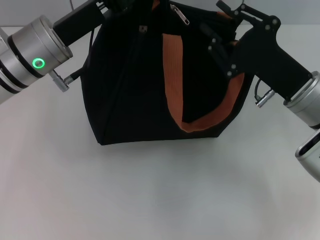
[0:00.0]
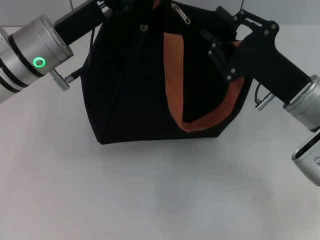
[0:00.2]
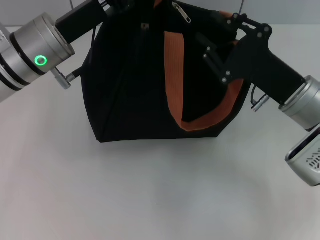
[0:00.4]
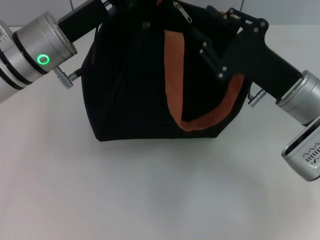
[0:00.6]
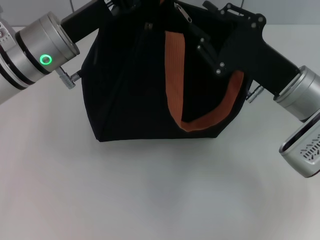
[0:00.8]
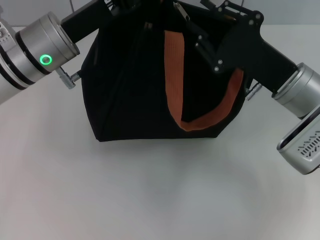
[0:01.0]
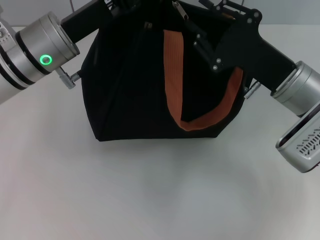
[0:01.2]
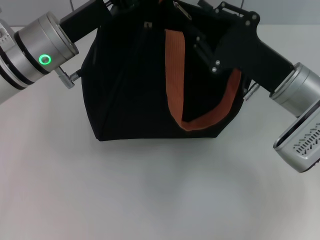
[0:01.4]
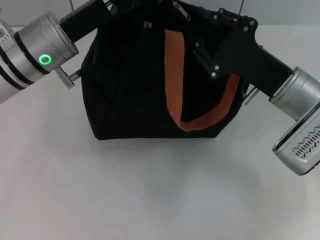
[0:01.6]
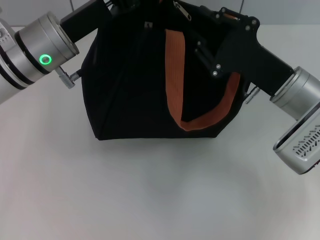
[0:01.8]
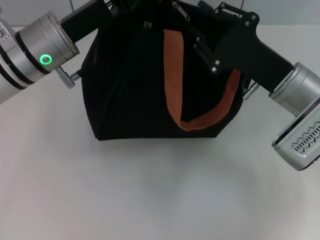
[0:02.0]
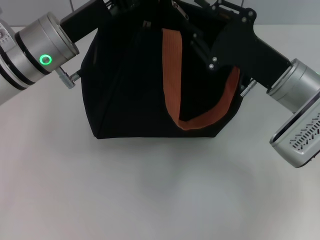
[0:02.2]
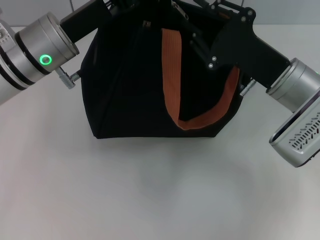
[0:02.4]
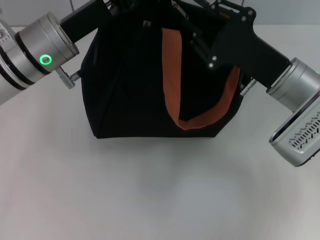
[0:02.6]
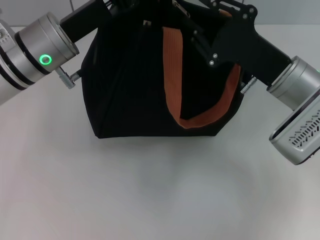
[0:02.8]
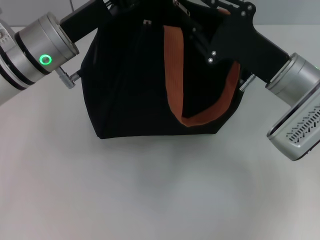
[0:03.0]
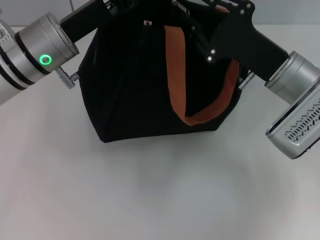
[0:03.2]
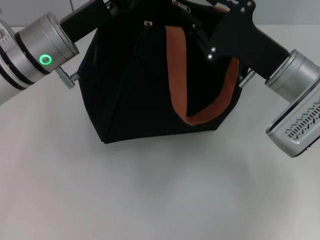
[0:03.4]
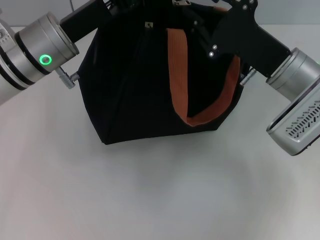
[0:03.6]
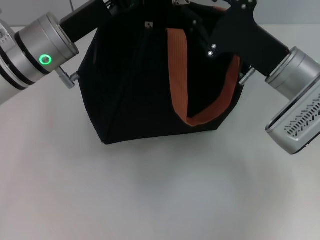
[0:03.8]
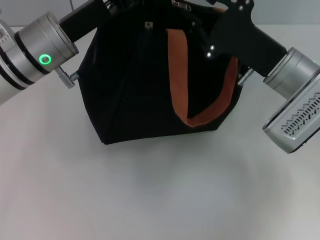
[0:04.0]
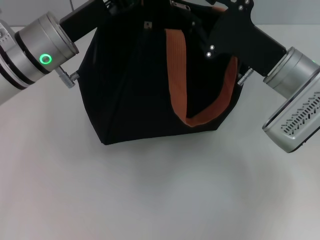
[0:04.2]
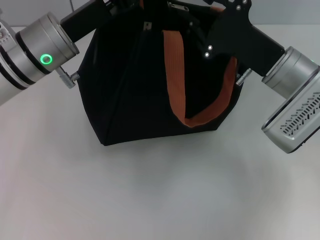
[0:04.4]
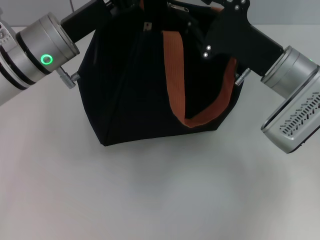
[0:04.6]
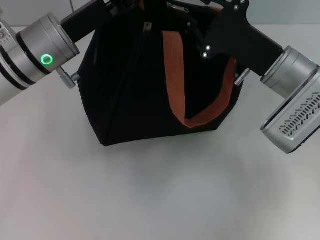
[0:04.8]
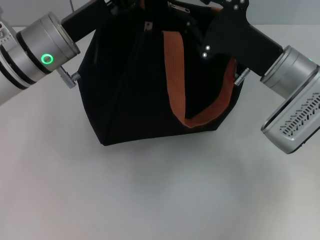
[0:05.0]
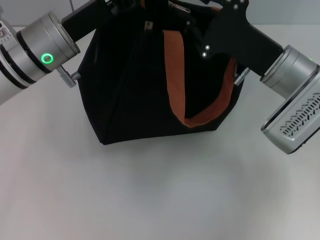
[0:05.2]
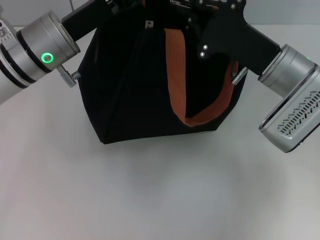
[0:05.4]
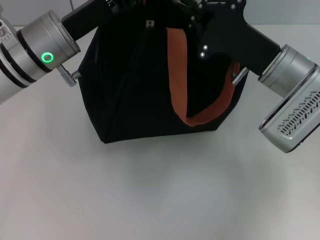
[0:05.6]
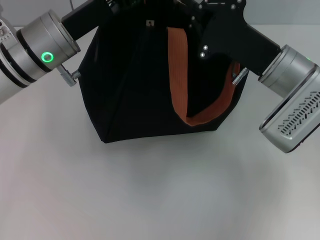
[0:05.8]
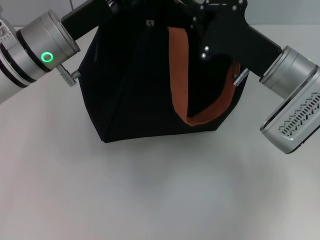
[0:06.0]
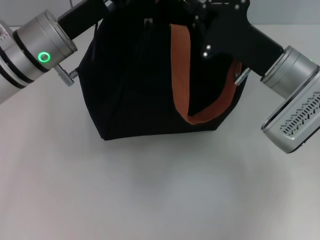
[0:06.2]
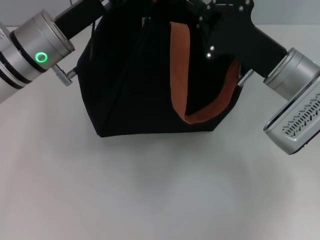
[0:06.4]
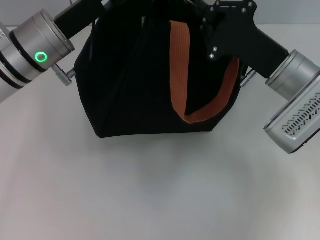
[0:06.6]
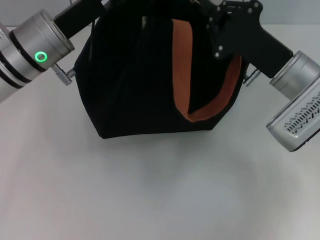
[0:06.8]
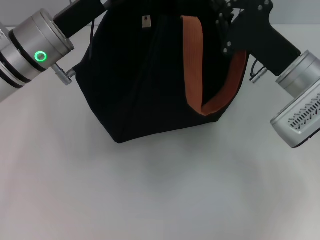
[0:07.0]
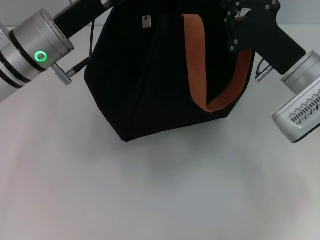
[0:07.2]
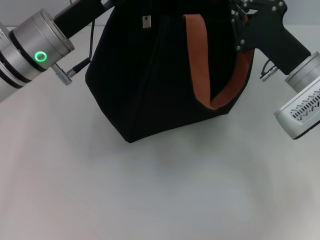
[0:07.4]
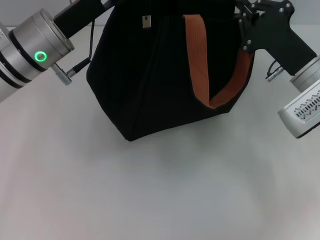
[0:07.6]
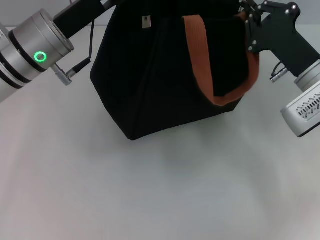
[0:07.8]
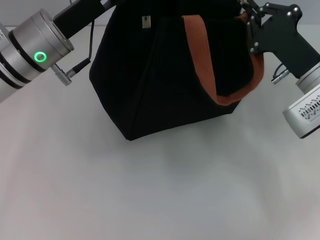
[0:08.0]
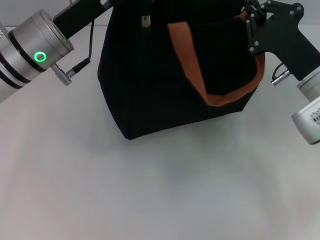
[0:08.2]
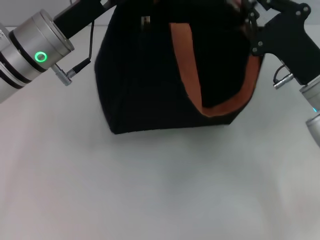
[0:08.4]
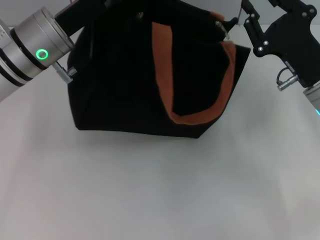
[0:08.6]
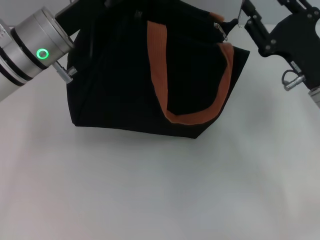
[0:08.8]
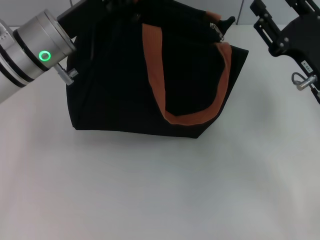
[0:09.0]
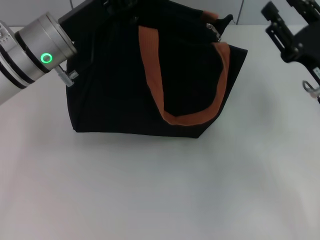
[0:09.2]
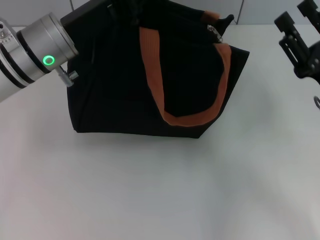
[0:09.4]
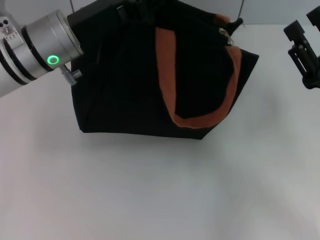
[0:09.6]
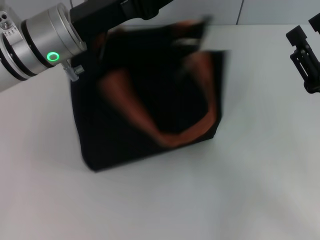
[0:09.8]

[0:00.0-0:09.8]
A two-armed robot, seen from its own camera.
Step, 0.0 to 8.4 s: Pull up the zipper with your right hand.
0.0 to 1.4 s: The grippers stay close to where they were, moving slightly.
1.4 to 2.8 s: Neither gripper changes place.
2.8 to 4.2 s: Both grippers stay about where they are.
4.2 to 5.6 s: Neither gripper changes place.
5.6 to 7.0 s: The grippers make only small movements.
7.0 to 8.4 s: The grippers move only a little.
8.4 to 9.8 s: The right gripper heads backward, covering approximately 5 cm, and opens up.

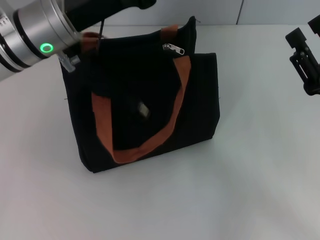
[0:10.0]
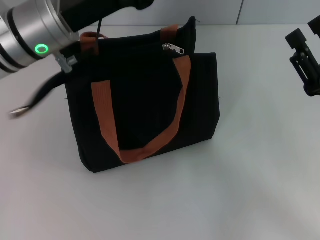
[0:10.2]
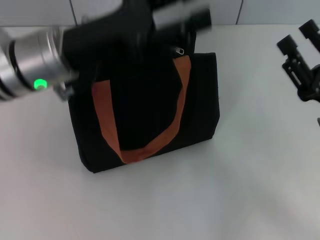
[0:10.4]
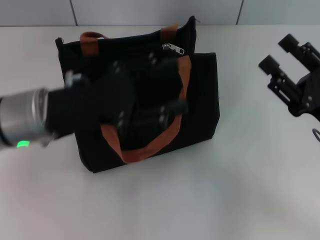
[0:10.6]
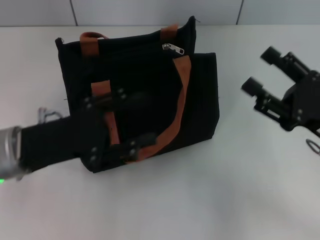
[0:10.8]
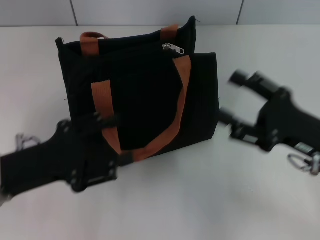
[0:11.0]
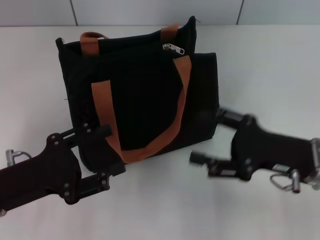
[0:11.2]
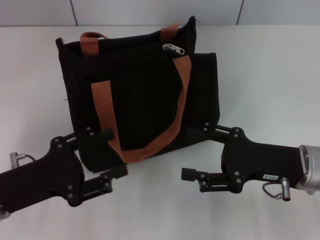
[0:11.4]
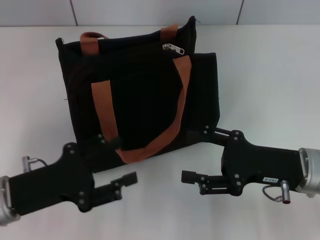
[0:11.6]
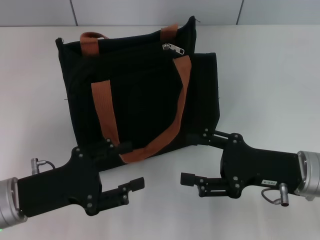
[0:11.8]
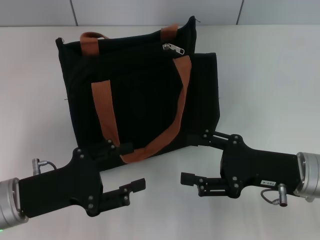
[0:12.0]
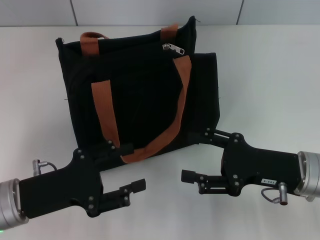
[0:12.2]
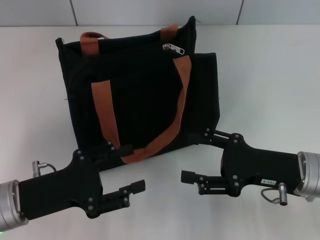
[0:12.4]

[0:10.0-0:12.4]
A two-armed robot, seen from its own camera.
10.0 to 11.2 s: The left gripper heads backward, downward and to the left, covering some 20 cm, and opens.
11.2 to 12.4 s: There are only small adjustments of the grippers.

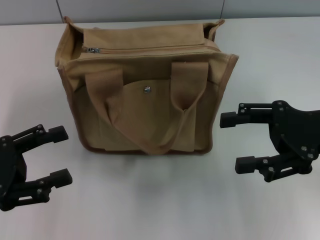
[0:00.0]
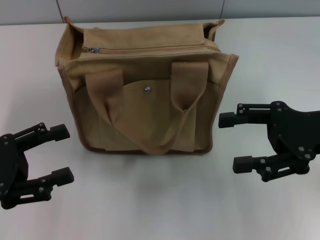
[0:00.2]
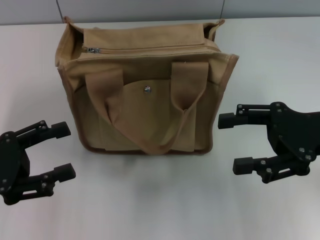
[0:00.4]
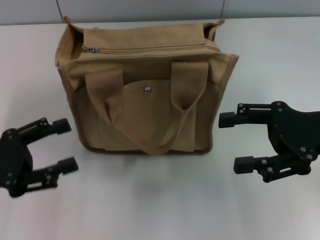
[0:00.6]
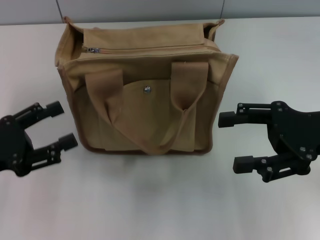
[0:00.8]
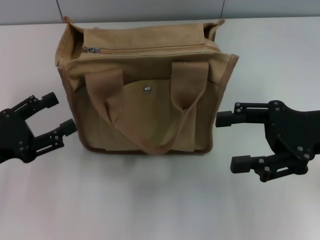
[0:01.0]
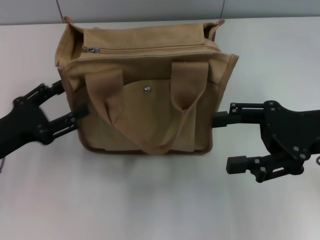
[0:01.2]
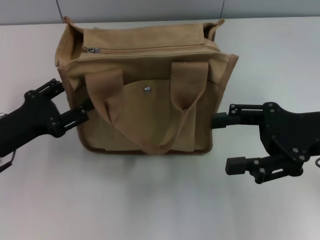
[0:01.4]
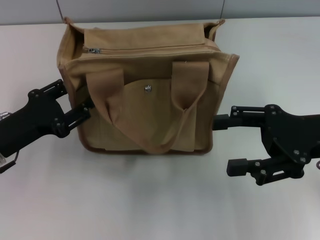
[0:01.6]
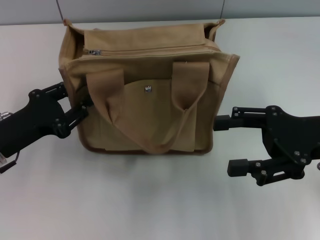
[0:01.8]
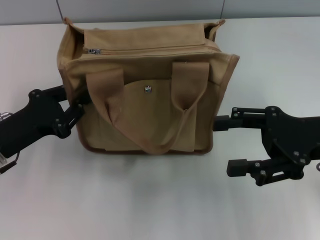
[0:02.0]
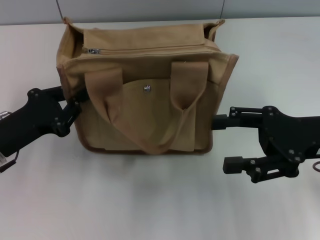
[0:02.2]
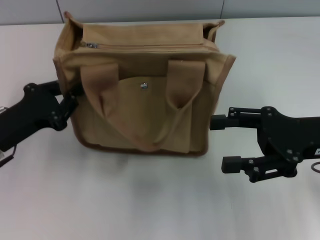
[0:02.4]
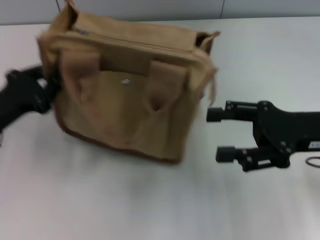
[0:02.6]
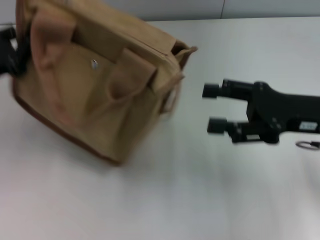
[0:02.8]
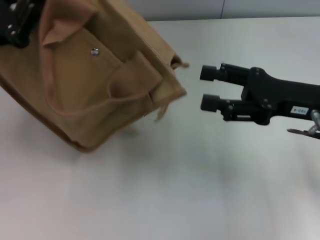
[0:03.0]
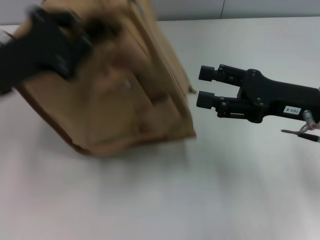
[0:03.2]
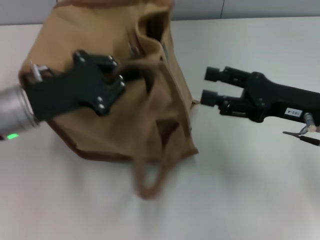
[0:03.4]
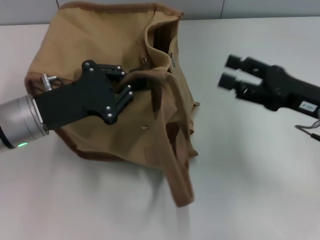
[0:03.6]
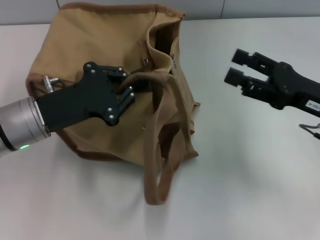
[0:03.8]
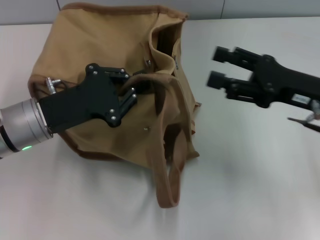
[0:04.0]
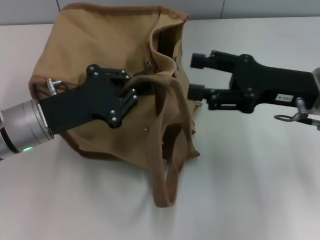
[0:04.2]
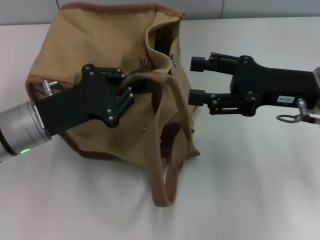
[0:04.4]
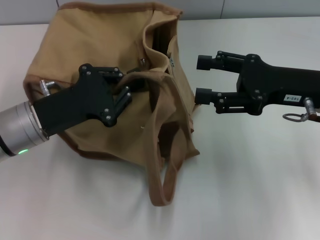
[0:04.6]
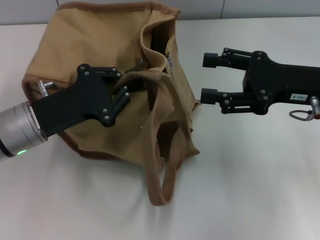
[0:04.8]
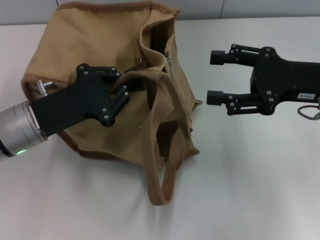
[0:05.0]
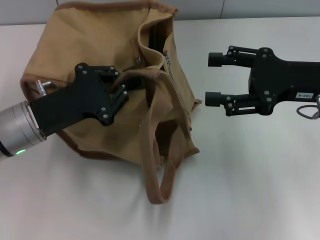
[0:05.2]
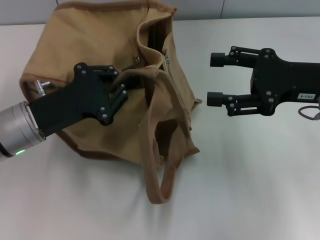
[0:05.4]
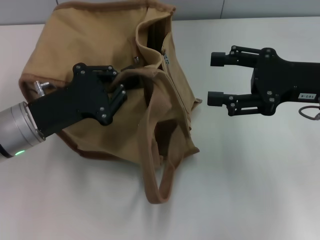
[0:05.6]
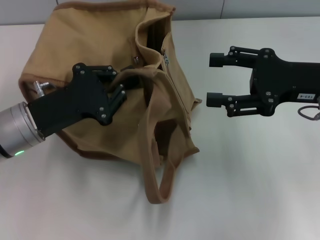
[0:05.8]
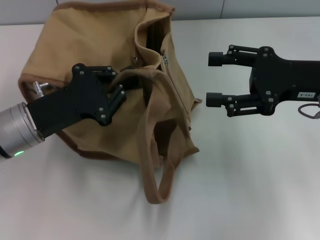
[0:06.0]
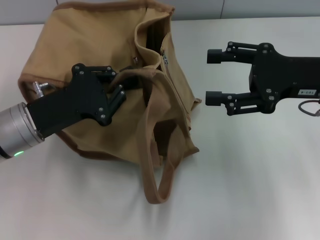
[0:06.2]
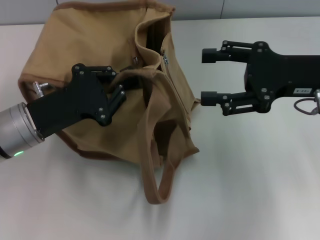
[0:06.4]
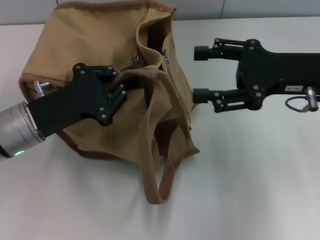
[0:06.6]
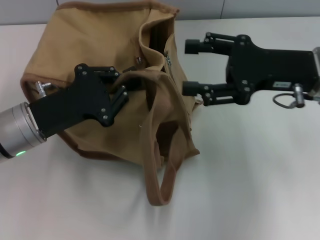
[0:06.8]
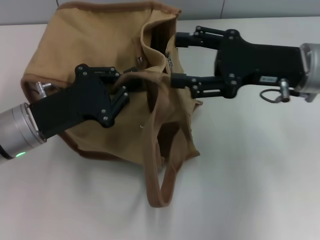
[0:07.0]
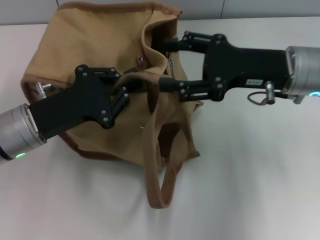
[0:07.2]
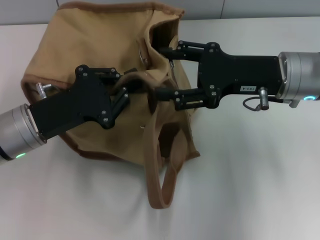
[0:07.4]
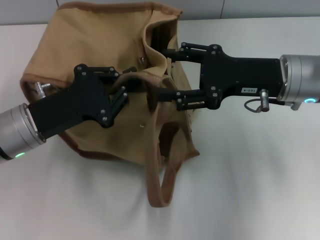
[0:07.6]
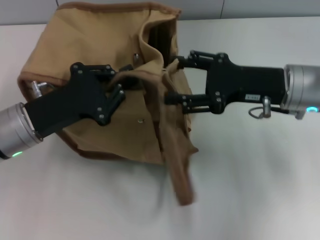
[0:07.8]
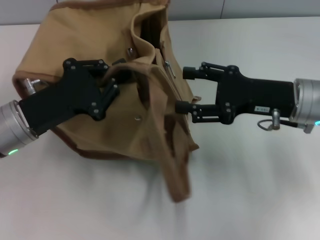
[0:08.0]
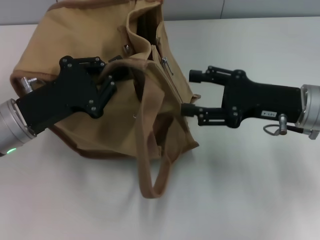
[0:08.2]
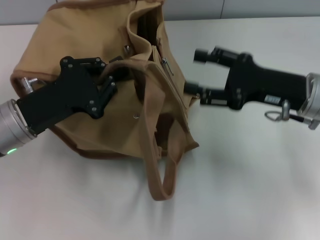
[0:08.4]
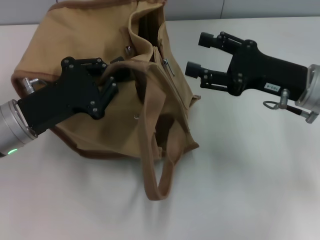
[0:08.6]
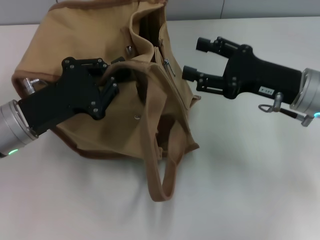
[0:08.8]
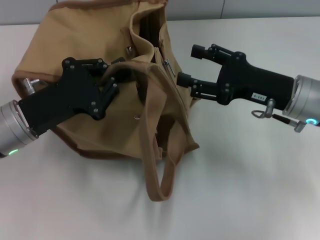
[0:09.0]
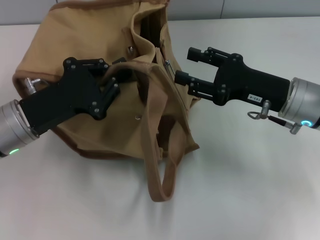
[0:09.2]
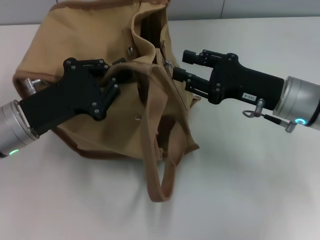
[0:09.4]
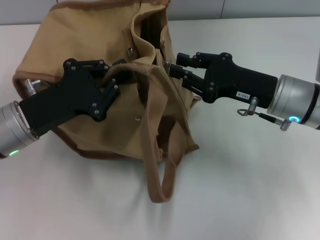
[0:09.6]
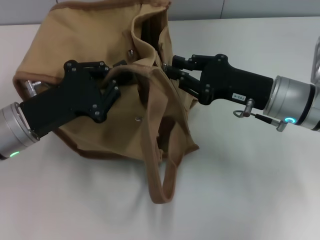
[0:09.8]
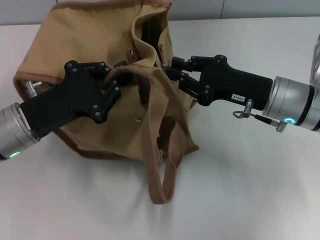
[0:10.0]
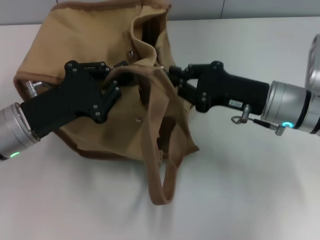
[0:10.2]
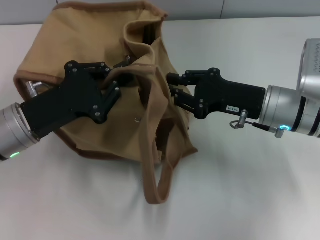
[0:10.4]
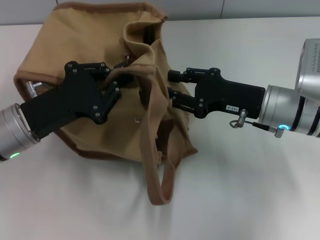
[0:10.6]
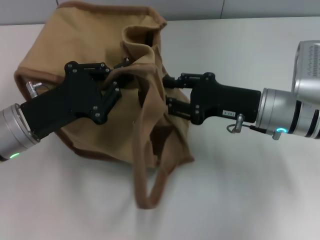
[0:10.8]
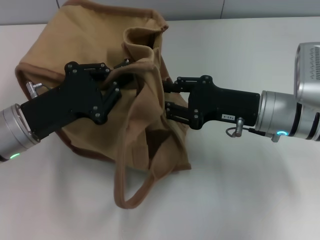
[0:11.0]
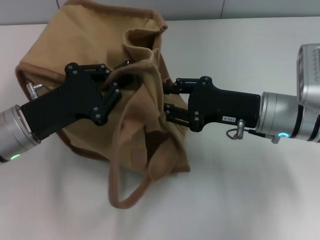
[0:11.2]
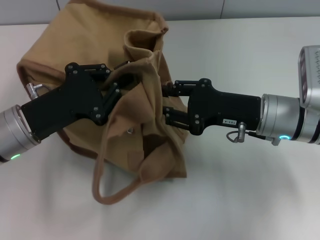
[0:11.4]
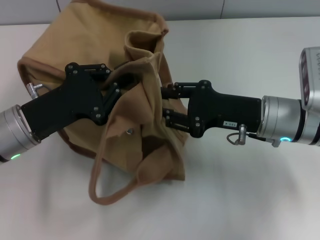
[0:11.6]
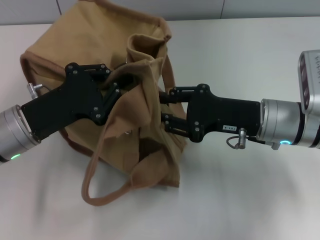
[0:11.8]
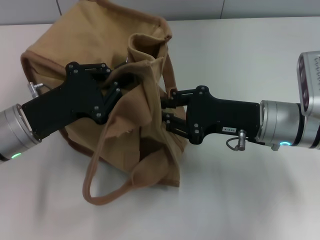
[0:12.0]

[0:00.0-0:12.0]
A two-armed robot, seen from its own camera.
0.0 to 1.6 s: The left gripper heads forward, covering some 5 cm.
1.6 to 3.0 s: The left gripper shifts roughly 10 cm upward and forward, and closes up.
3.0 to 4.4 s: The left gripper heads to the right and downward, covering roughly 10 cm.
4.4 to 6.0 s: There are only small adjustments of the grippers.
6.0 to 7.6 s: The right gripper shifts some 5 cm to the left.
7.6 to 9.0 s: The right gripper shifts by roughly 5 cm.
9.0 to 10.4 s: The right gripper closes.
